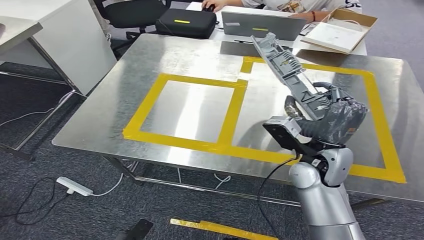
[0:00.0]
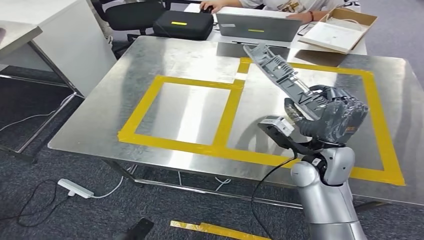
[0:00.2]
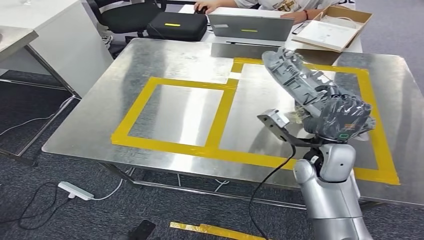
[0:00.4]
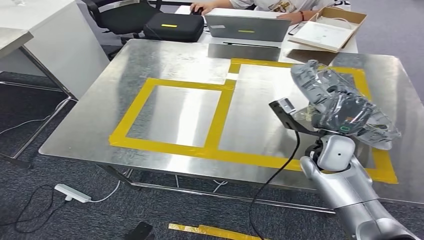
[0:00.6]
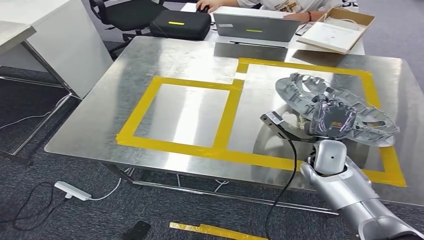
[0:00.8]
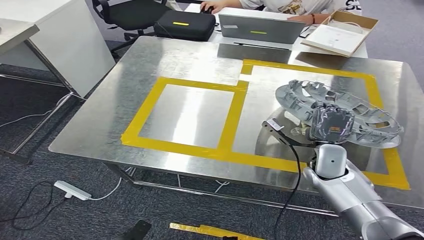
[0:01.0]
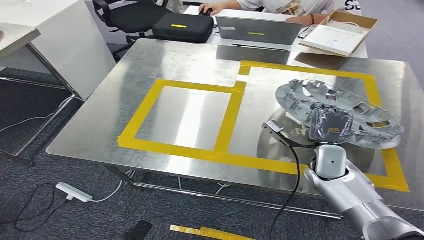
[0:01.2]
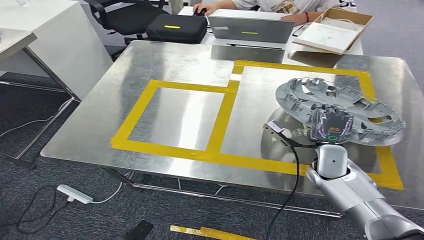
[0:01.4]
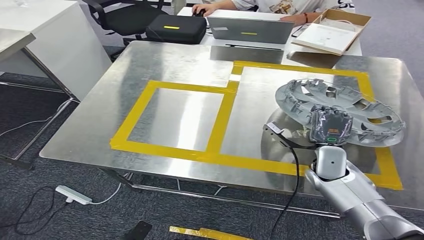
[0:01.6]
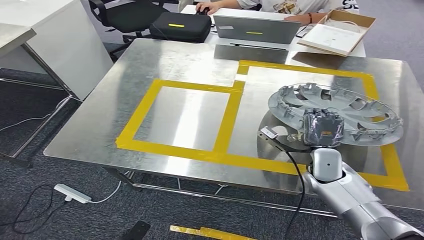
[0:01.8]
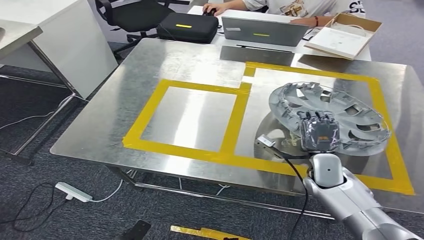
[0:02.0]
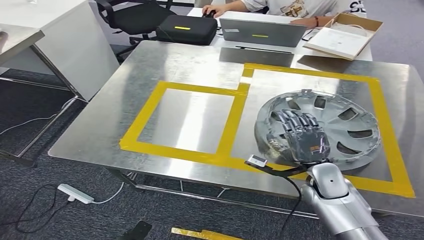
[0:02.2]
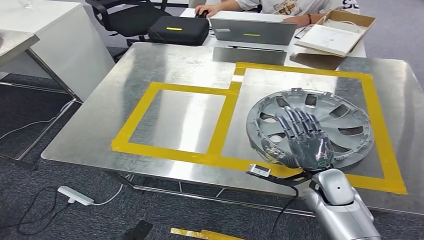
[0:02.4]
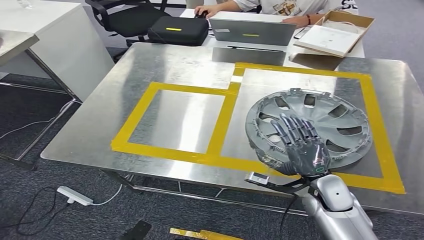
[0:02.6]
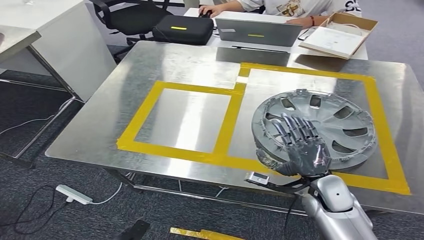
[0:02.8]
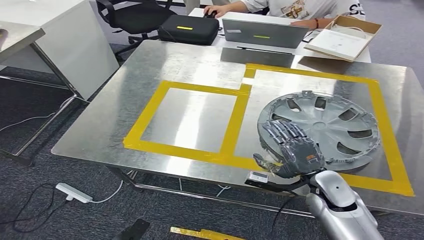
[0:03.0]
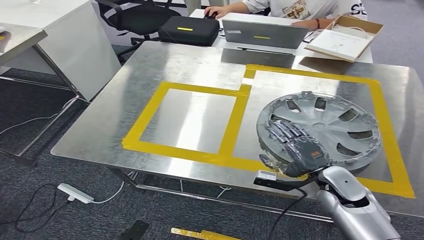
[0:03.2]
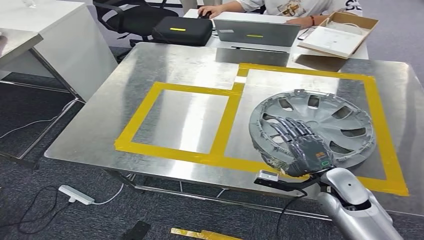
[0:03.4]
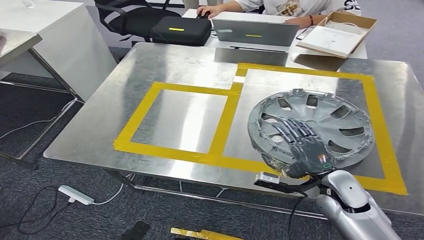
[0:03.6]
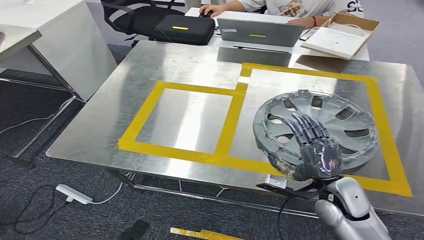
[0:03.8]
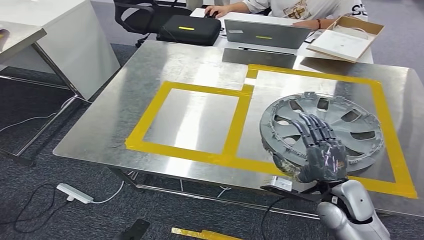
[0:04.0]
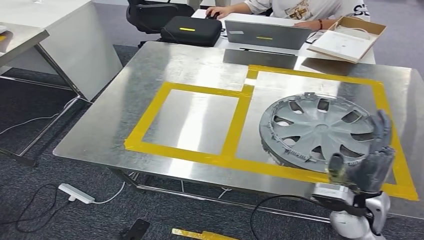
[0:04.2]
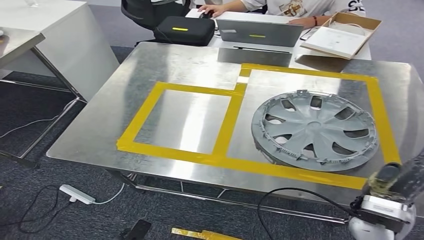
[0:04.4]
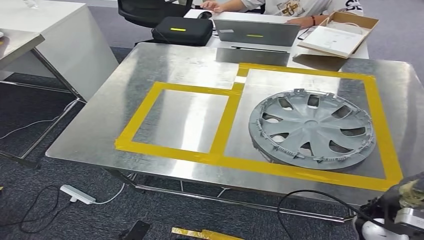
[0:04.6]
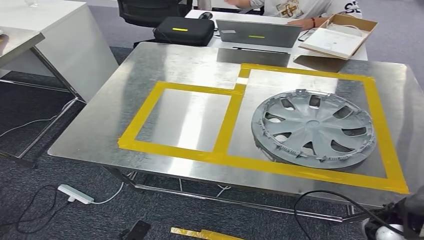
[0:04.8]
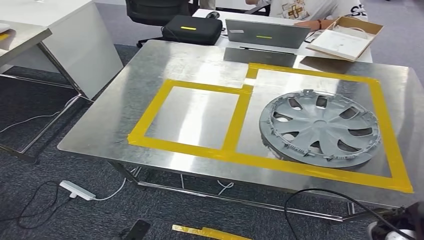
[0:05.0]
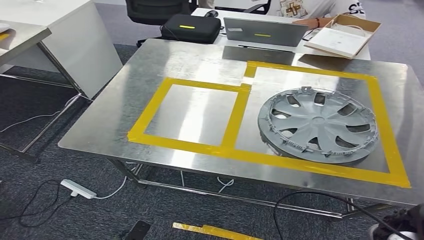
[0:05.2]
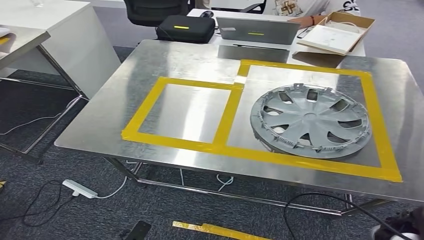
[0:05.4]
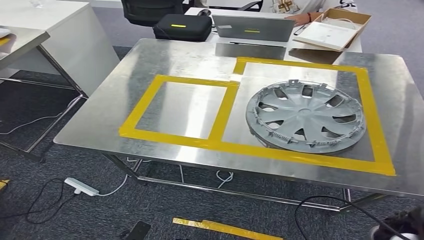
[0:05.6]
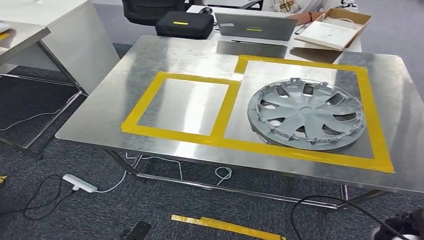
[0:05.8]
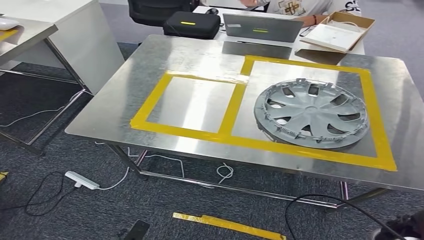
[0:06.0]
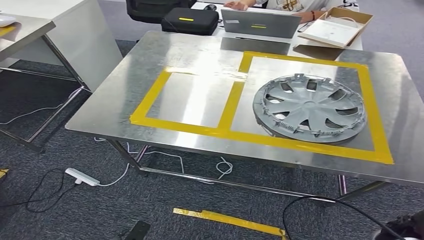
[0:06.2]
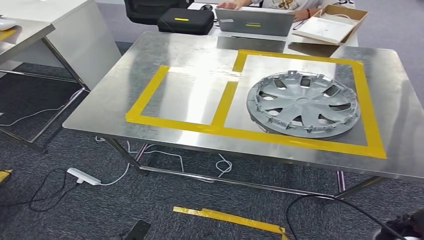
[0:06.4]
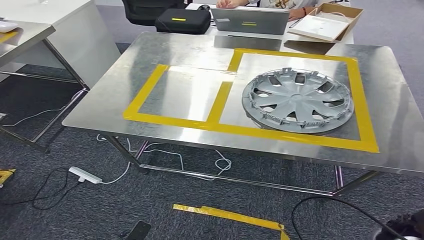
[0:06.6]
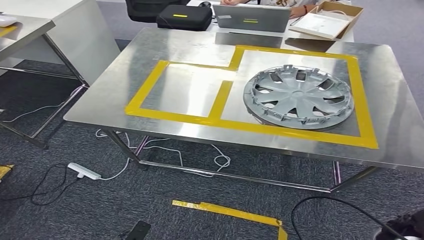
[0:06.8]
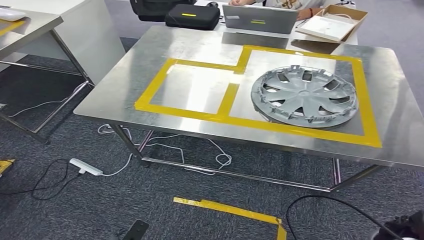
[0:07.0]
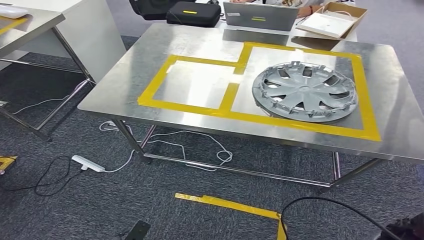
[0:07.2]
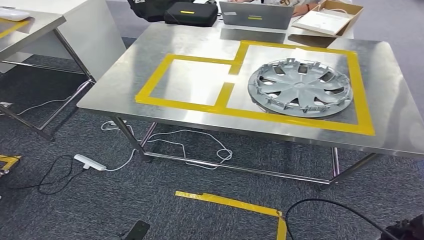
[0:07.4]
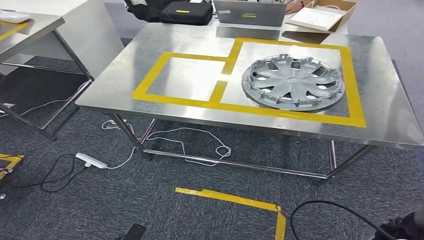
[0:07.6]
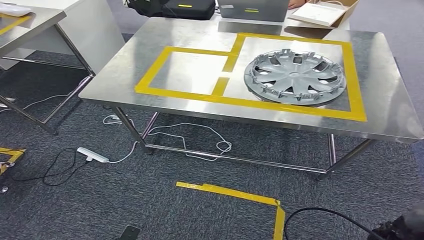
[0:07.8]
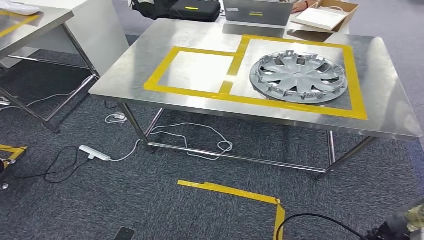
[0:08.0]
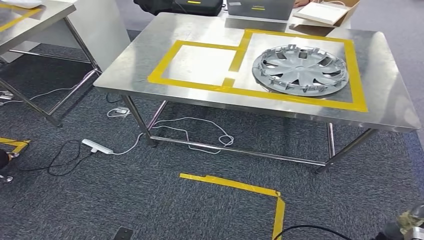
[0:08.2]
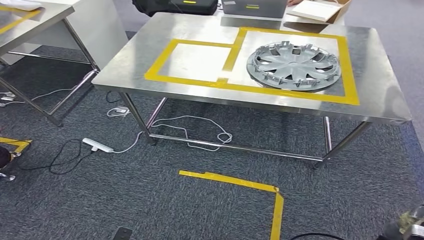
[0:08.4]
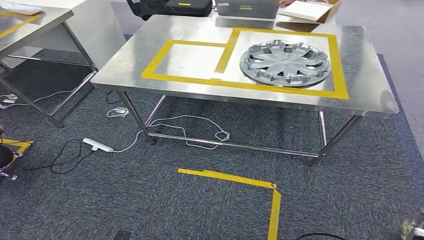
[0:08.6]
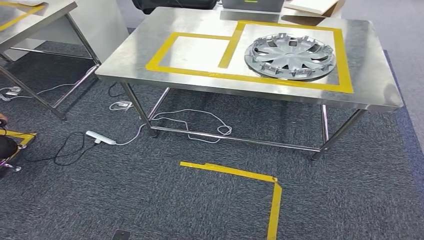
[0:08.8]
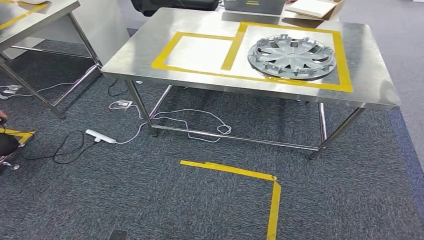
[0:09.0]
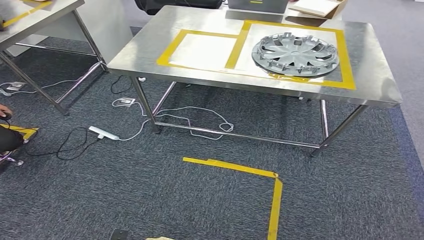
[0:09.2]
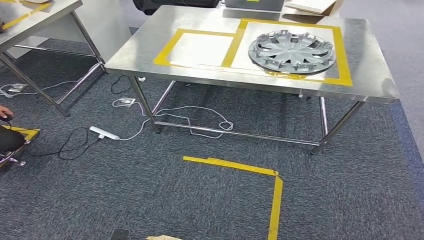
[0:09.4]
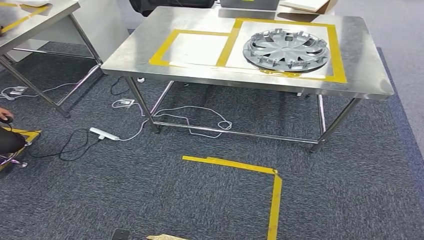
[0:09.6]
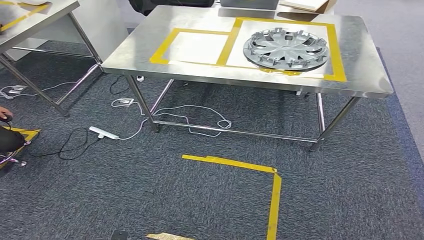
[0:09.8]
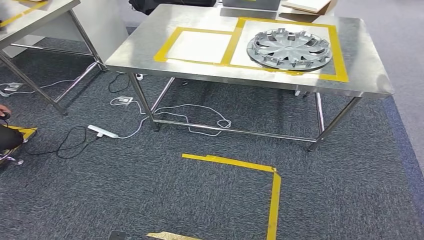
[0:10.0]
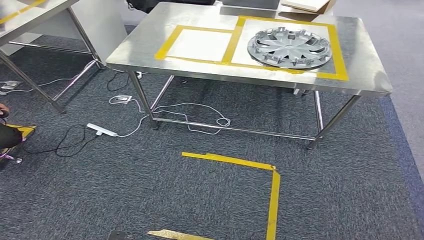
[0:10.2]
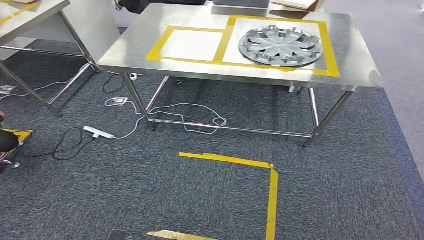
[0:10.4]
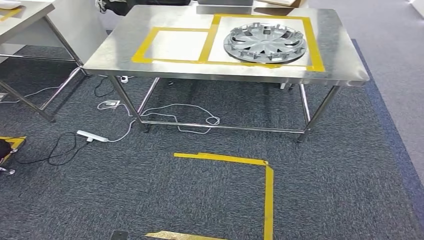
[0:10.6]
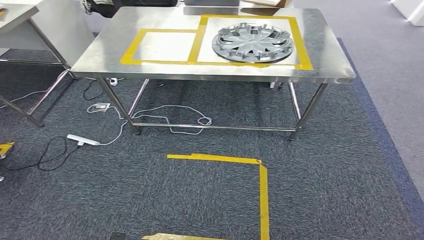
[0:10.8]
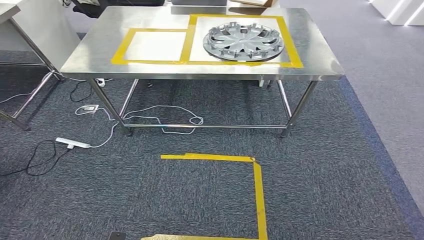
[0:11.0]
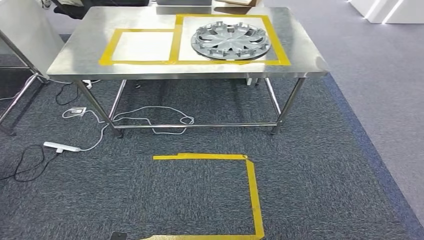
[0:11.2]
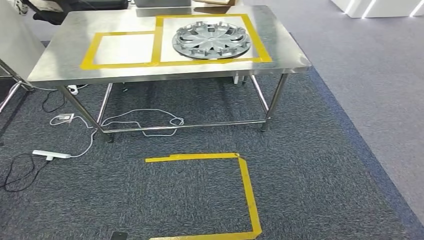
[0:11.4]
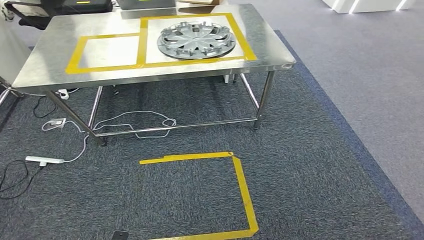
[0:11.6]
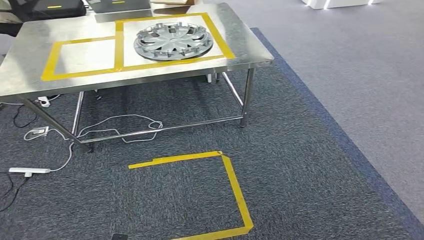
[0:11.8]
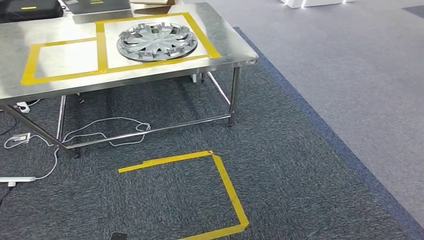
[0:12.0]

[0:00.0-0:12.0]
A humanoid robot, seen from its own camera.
Step, 0:00.0 to 0:06.0: Insert the small component into the corresponding slot on the workbench.

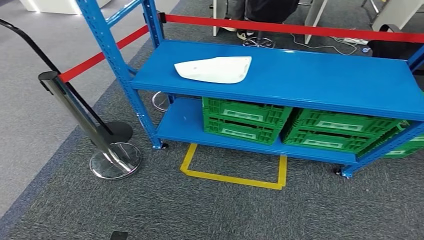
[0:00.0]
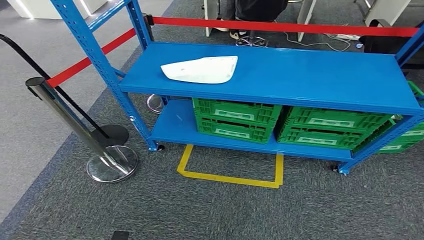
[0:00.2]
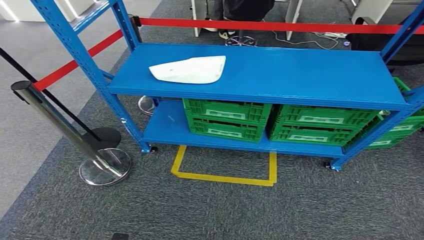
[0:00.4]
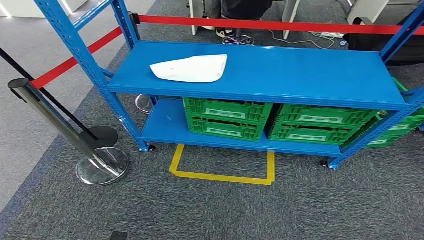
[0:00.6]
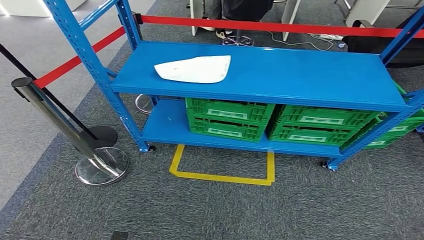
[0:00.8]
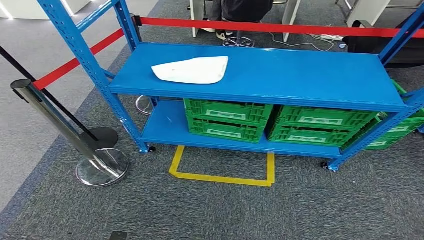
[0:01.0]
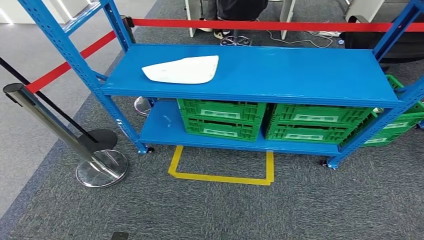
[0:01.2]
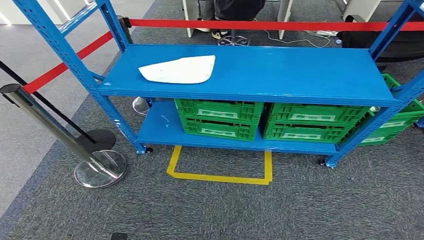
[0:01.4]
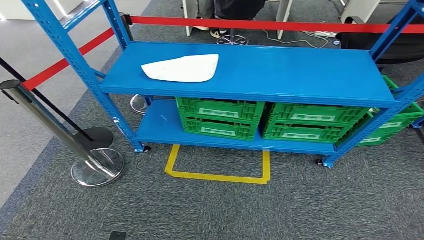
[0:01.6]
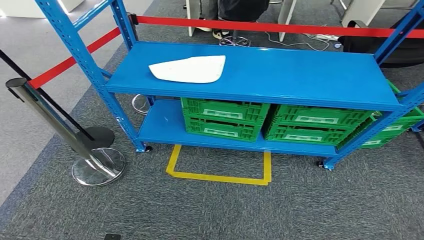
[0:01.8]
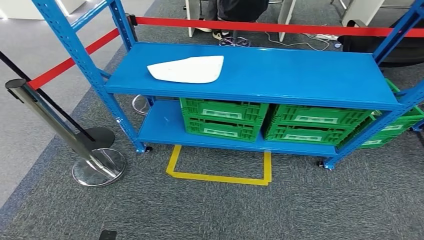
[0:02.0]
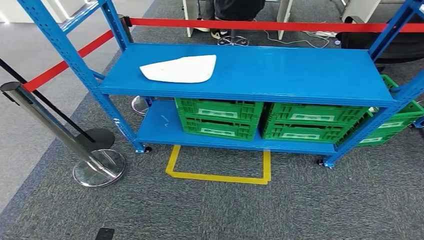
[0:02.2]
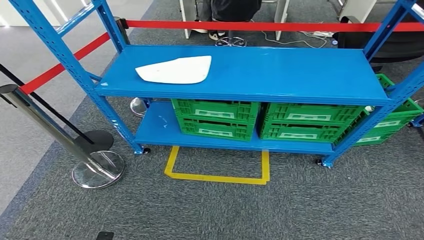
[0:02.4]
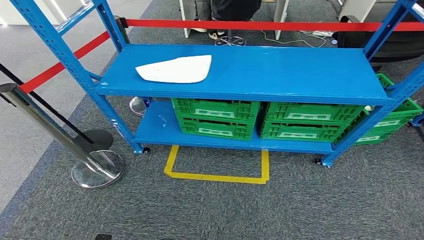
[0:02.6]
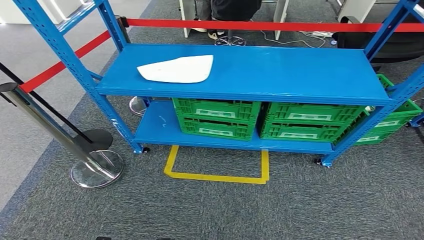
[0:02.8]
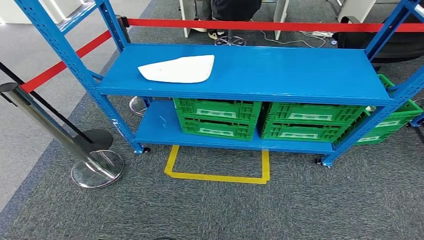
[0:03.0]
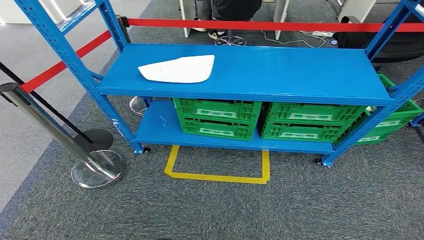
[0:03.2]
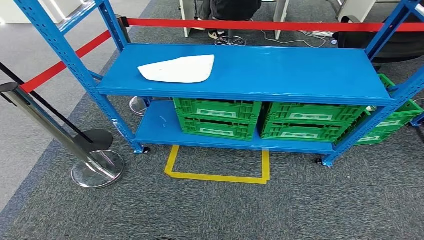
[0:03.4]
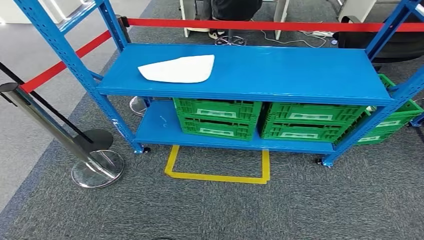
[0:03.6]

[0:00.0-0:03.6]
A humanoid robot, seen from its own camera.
Step, 0:00.0 to 0:03.4: Return to the initial position at the workbench.
